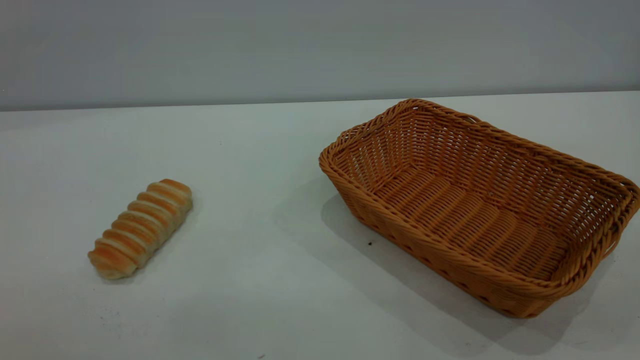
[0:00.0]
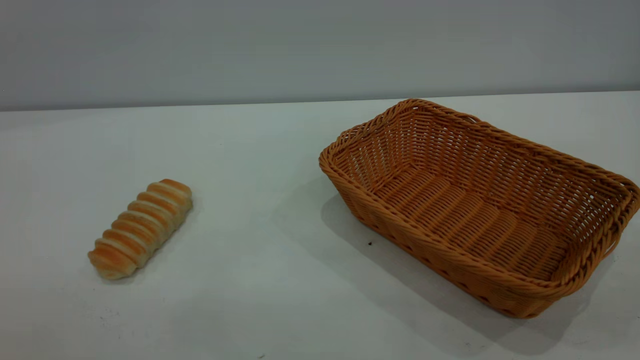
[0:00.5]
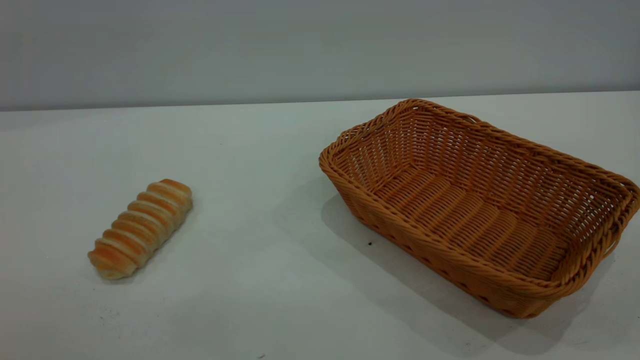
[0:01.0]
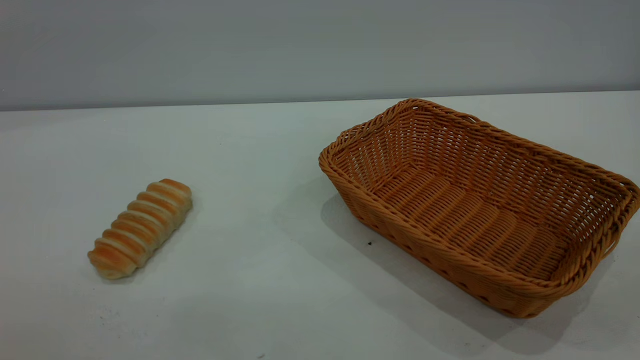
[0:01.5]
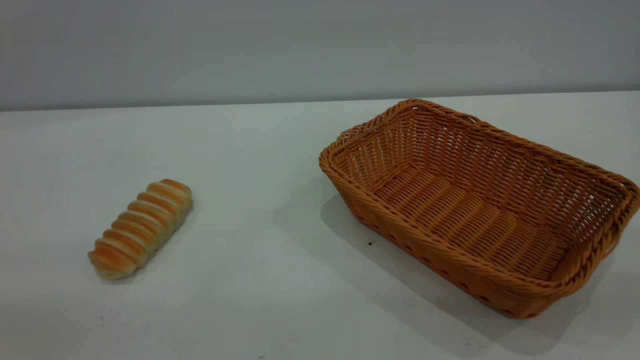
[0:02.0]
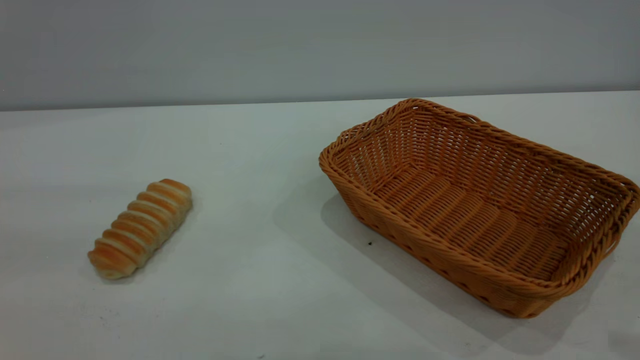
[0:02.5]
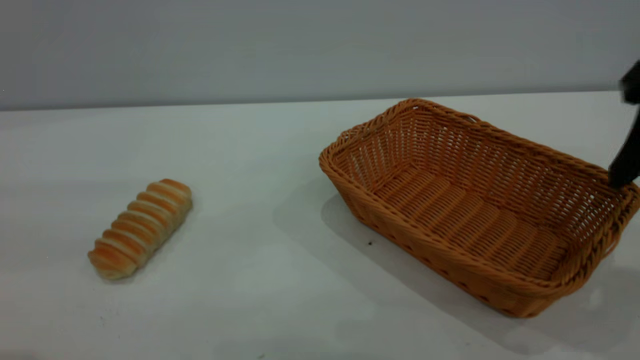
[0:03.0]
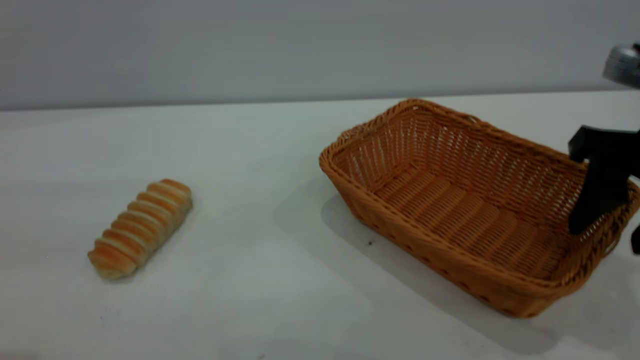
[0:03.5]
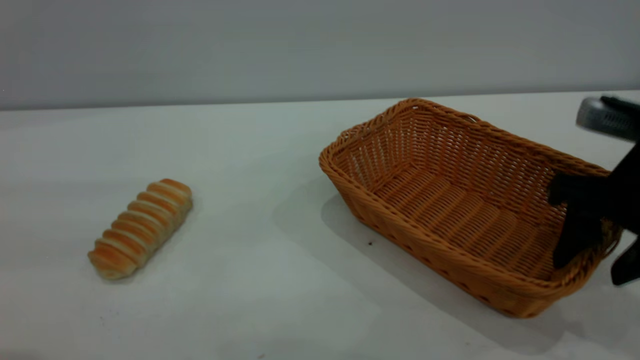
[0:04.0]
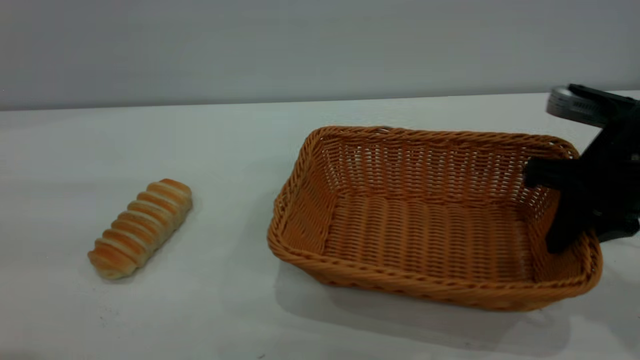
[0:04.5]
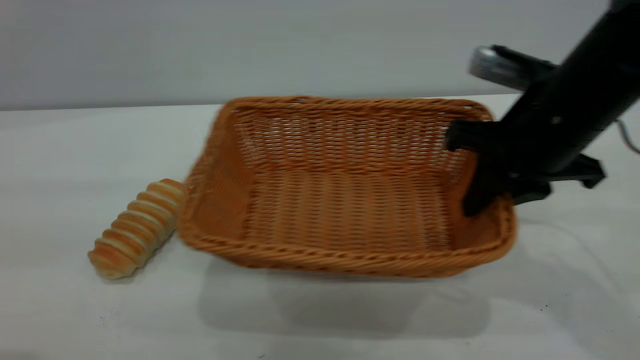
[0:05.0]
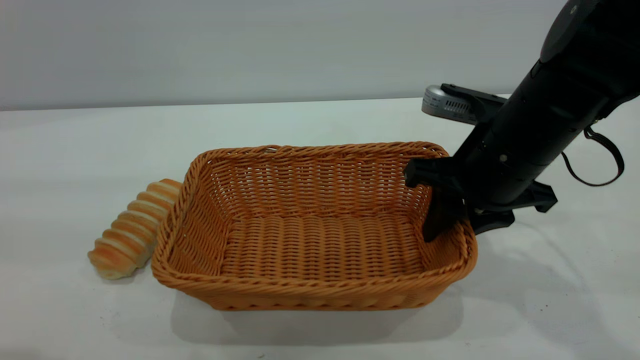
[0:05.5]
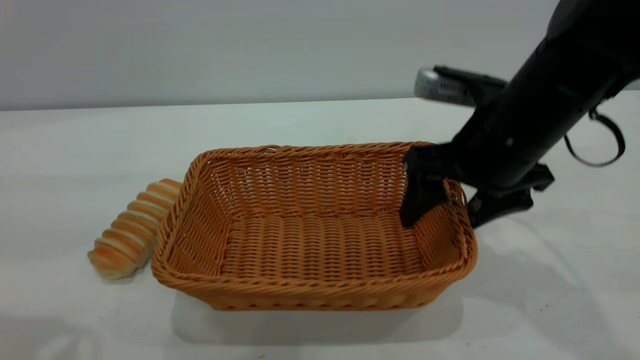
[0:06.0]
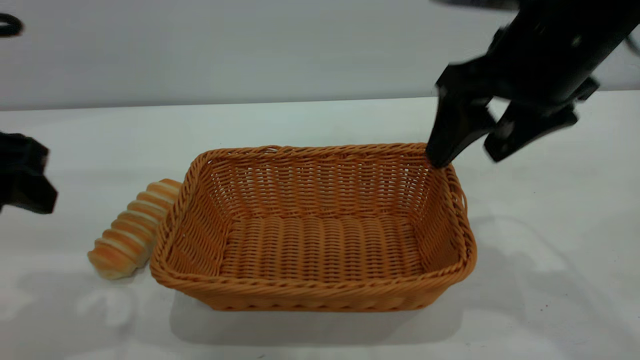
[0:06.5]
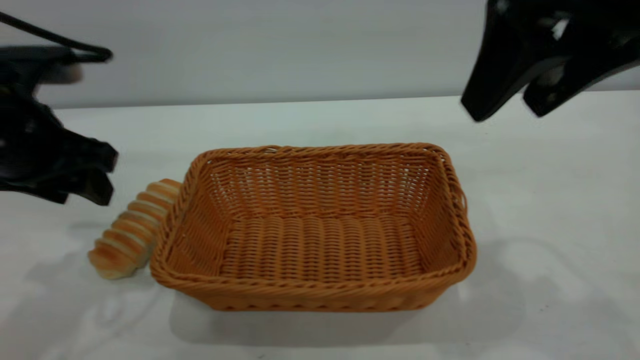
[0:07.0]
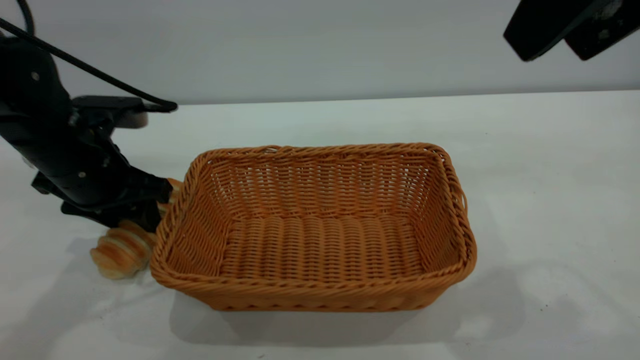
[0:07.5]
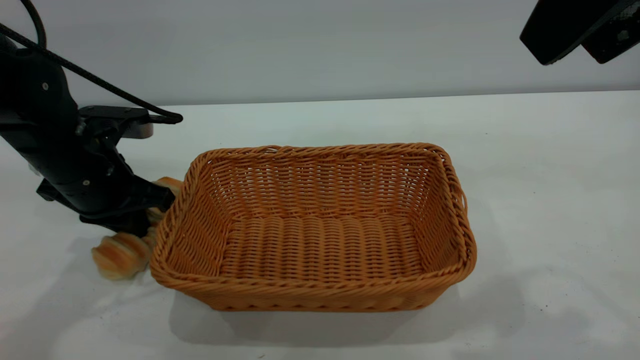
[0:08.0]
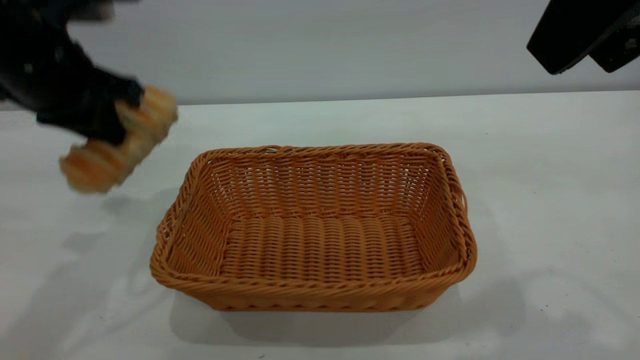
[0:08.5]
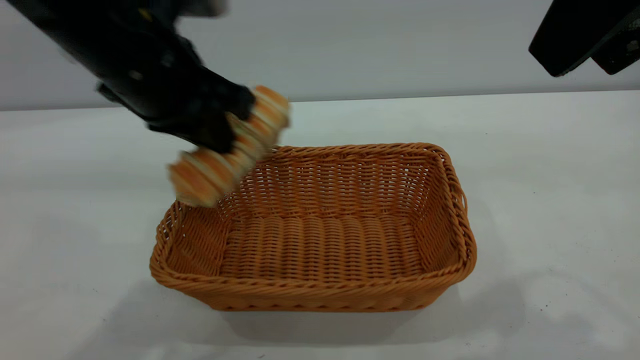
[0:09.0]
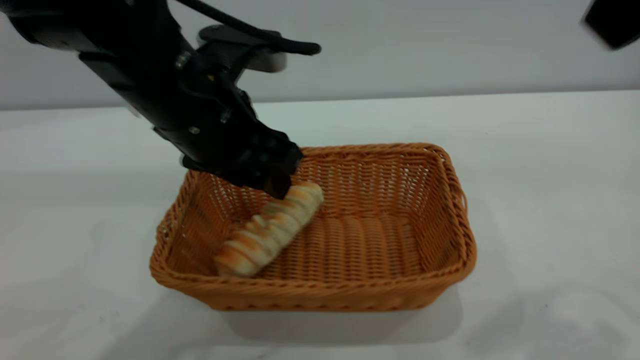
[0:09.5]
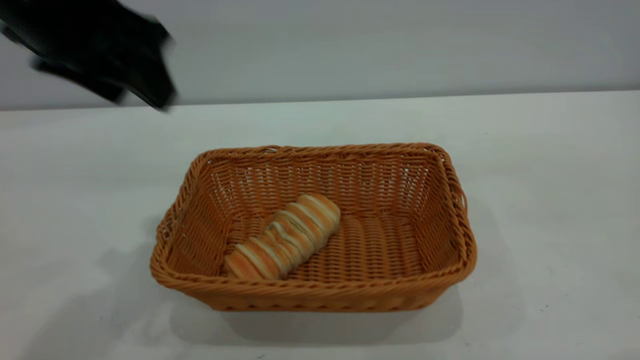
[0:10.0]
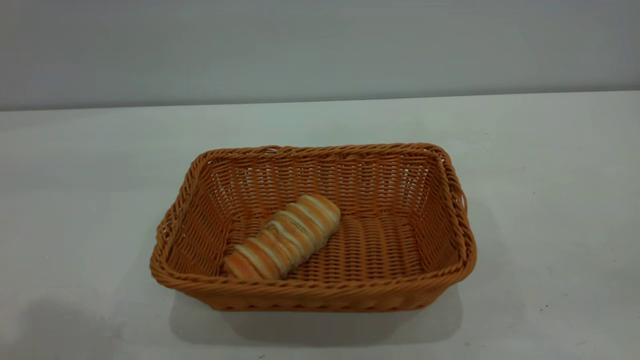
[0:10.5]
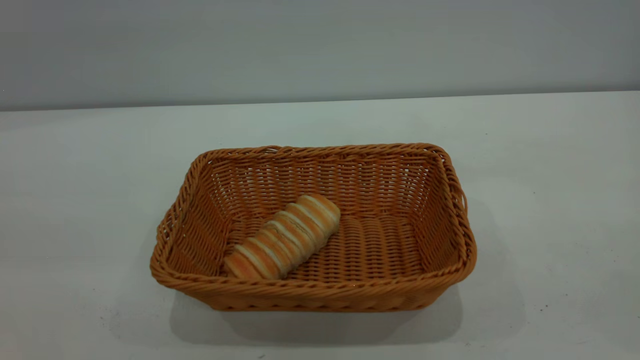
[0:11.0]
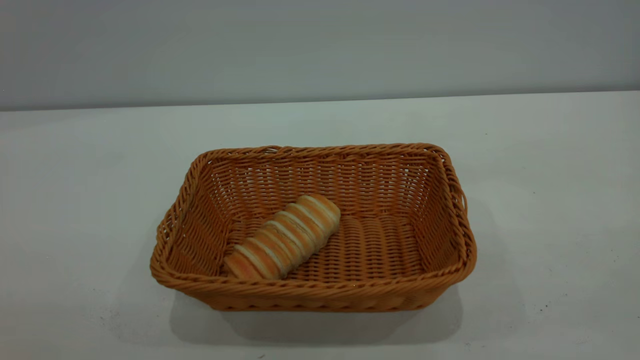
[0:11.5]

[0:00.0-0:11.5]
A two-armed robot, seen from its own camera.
Task of the whole recording: One hand grasps the yellow basket and places it in the middle of the table, while the other hand picks up the long bread and puts it into the yellow basket.
Step, 0:00.0 to 0:06.5: Move the basket to the center of view.
Step, 0:08.5 to 0:09.5: place the bread into the basket.
0:02.0 to 0:04.0: The right gripper travels forward and downward by approximately 30 cm.
0:04.0 to 0:06.0: The right gripper moves to the left and forward, approximately 10 cm, and closes, then reopens.
0:06.0 to 0:07.5: The right gripper is displaced upward and backward by roughly 25 cm; the left gripper goes roughly 25 cm forward and downward.
0:07.5 to 0:09.5: The left gripper goes about 15 cm to the right and upward, and closes and opens again.
0:09.5 to 0:11.5: The left gripper goes approximately 40 cm backward, to the left and upward; the right gripper goes some 20 cm backward and to the right.

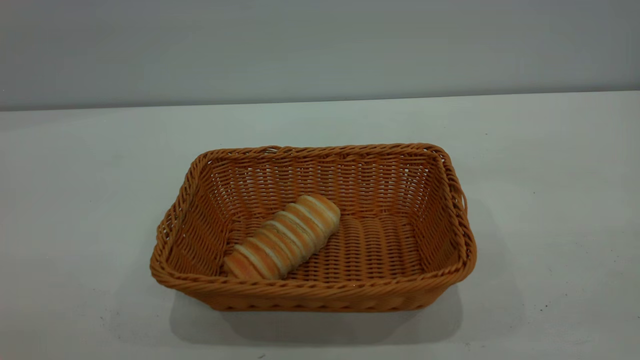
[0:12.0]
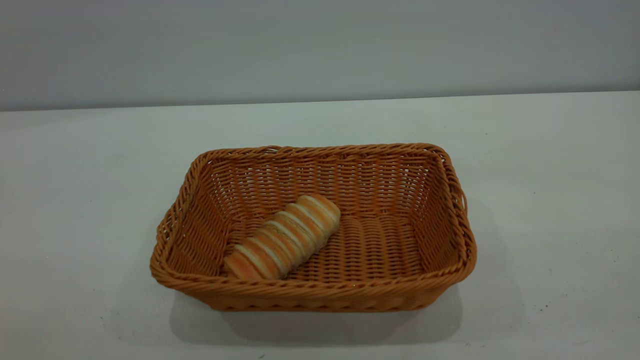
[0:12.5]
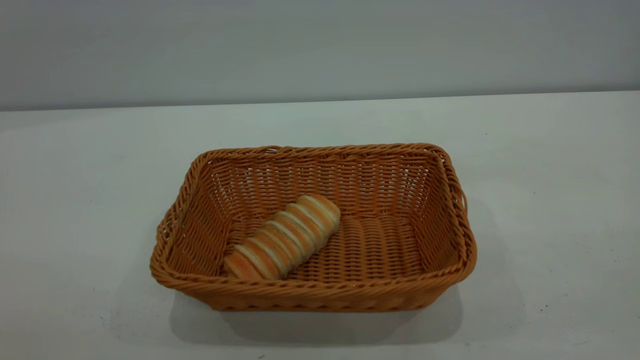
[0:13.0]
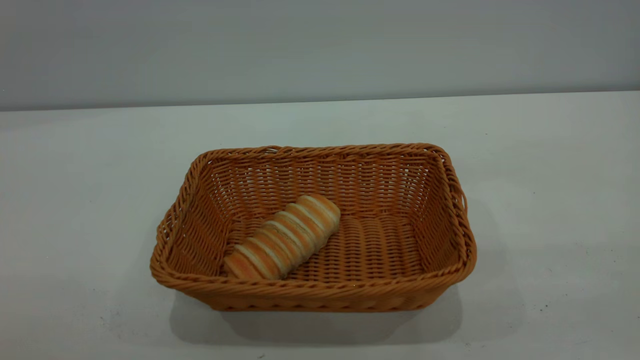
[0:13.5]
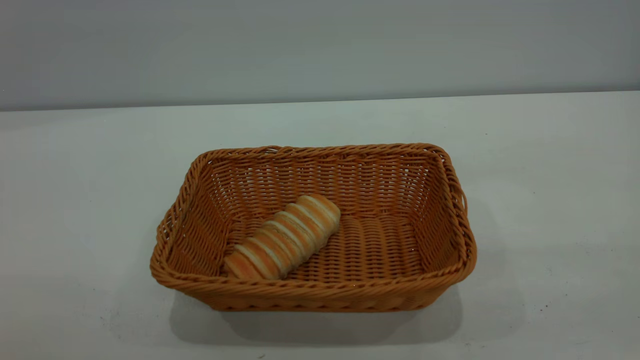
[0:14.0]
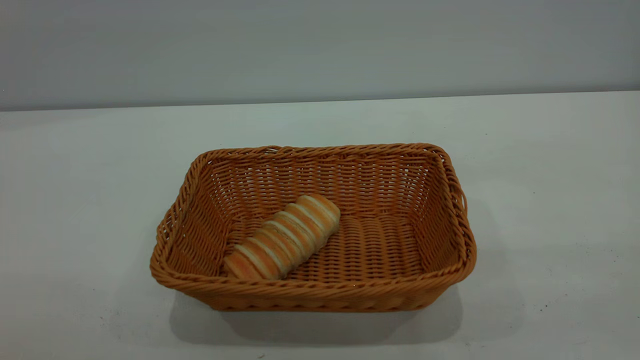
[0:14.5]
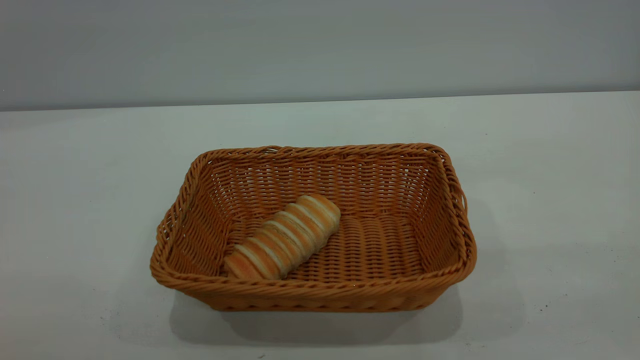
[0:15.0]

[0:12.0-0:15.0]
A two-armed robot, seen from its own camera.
Task of the whole recording: One hand grasps the yellow basket and places it in the middle of the table, while the other hand picks up the long bread and puts it into the yellow basket.
0:13.5 to 0:15.0: The two grippers keep their place.
